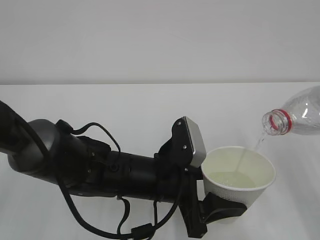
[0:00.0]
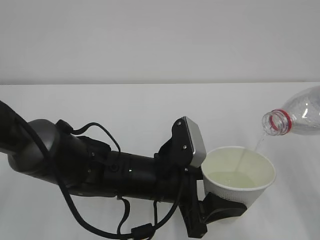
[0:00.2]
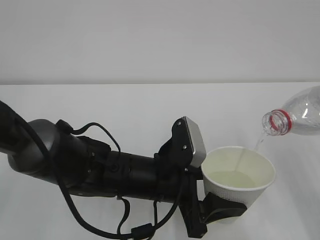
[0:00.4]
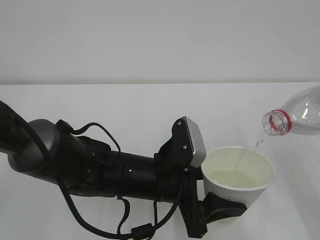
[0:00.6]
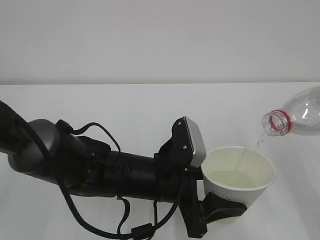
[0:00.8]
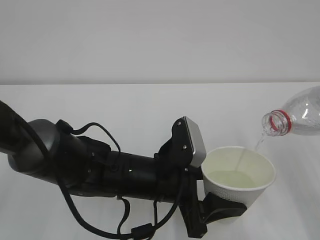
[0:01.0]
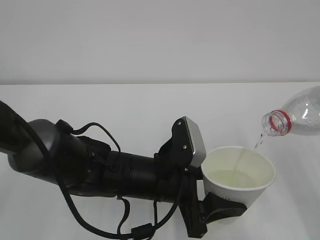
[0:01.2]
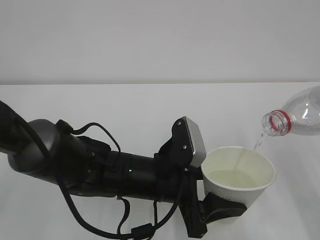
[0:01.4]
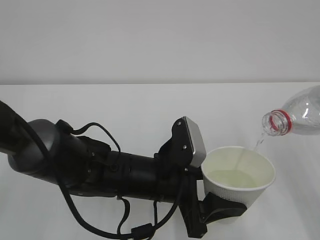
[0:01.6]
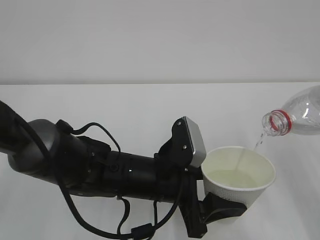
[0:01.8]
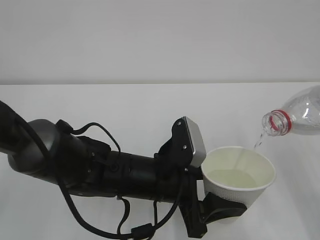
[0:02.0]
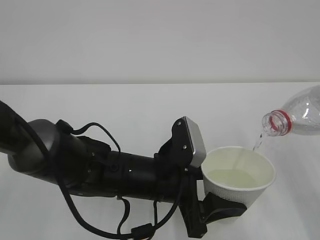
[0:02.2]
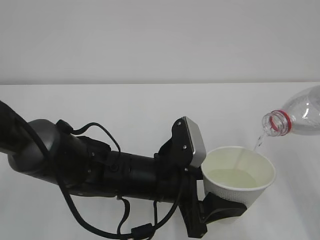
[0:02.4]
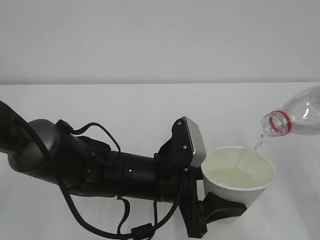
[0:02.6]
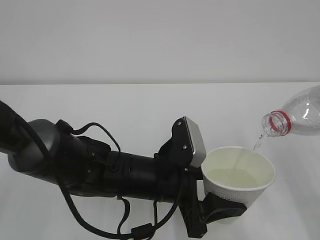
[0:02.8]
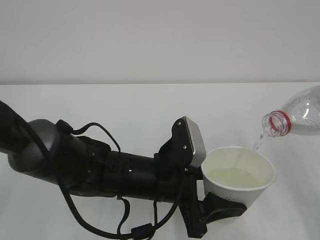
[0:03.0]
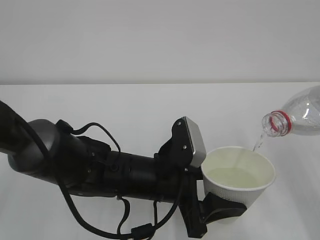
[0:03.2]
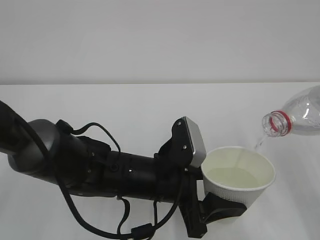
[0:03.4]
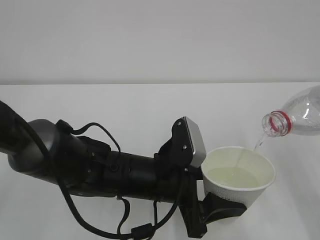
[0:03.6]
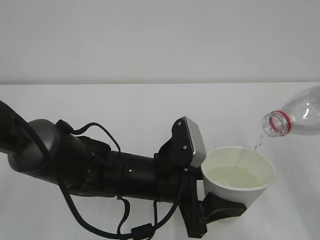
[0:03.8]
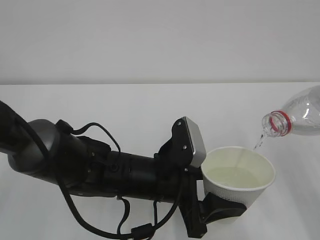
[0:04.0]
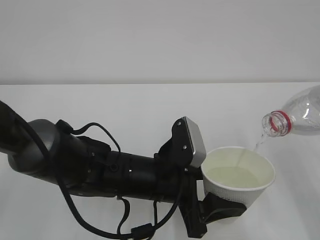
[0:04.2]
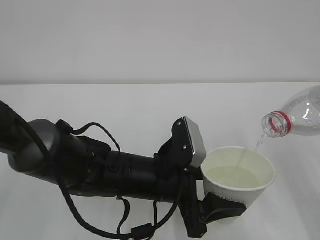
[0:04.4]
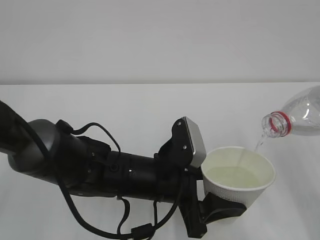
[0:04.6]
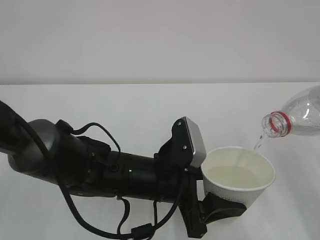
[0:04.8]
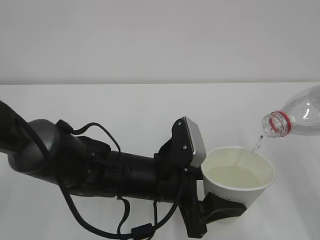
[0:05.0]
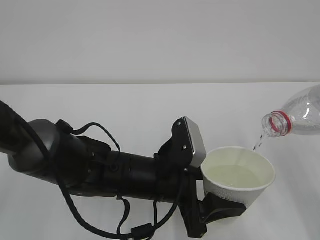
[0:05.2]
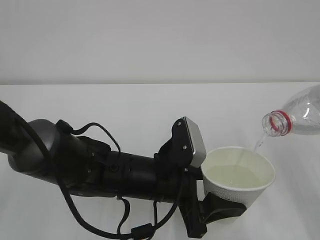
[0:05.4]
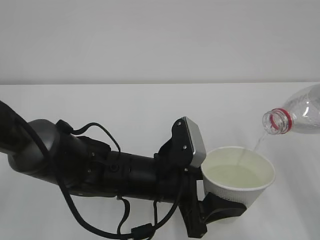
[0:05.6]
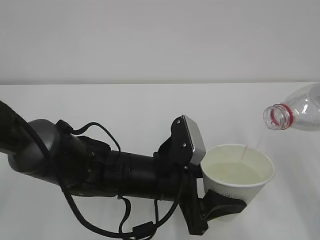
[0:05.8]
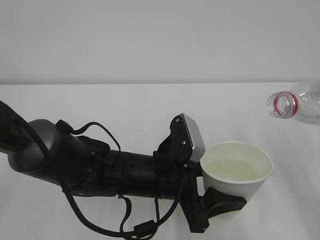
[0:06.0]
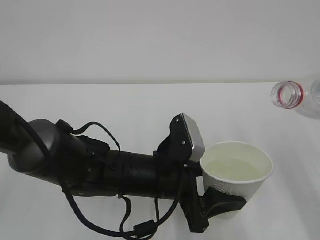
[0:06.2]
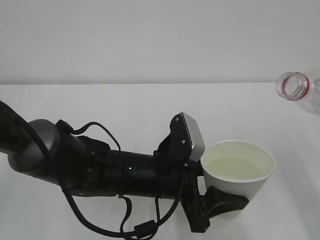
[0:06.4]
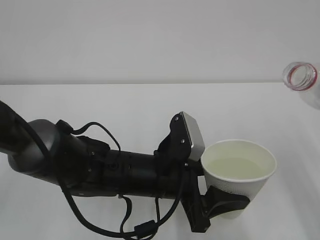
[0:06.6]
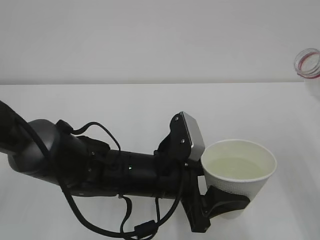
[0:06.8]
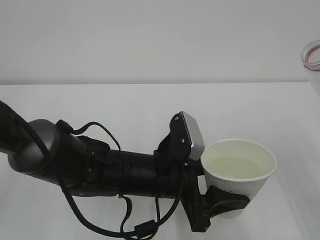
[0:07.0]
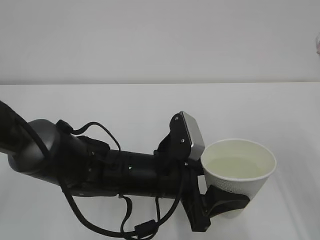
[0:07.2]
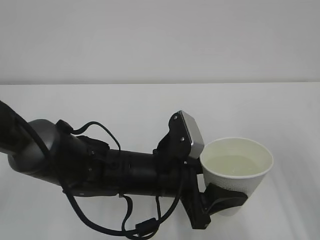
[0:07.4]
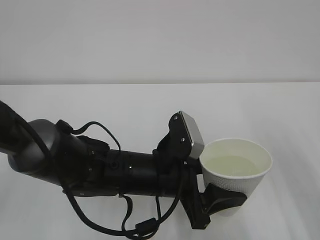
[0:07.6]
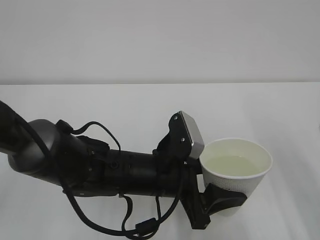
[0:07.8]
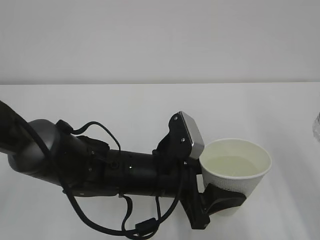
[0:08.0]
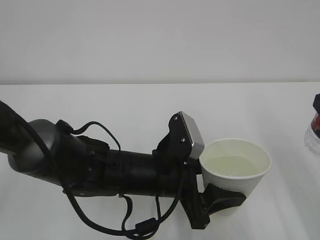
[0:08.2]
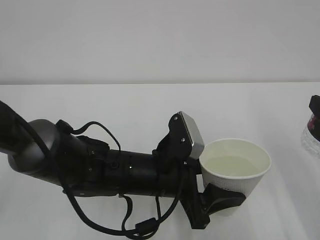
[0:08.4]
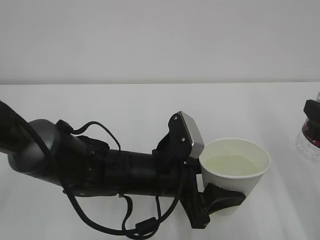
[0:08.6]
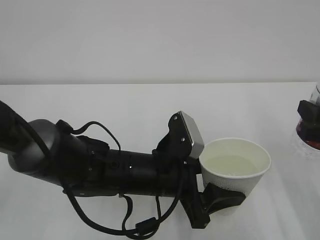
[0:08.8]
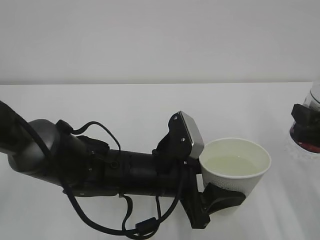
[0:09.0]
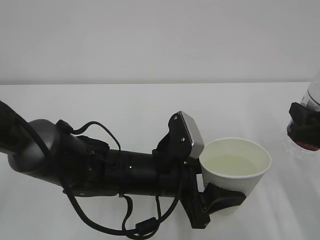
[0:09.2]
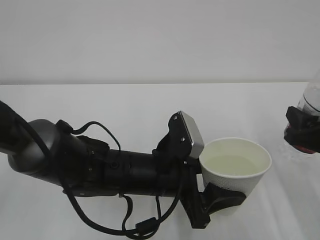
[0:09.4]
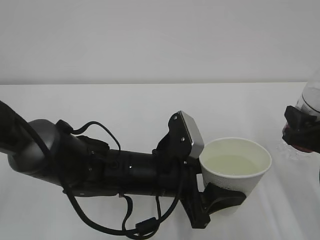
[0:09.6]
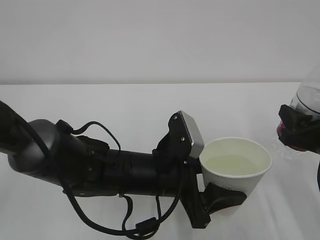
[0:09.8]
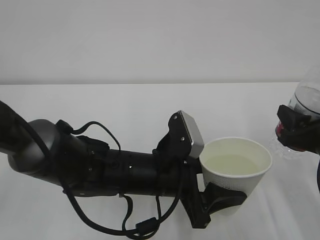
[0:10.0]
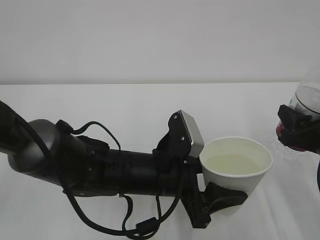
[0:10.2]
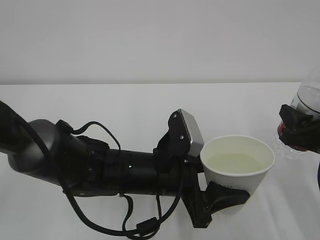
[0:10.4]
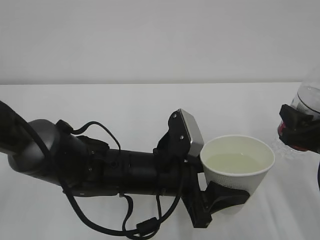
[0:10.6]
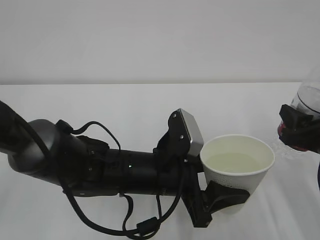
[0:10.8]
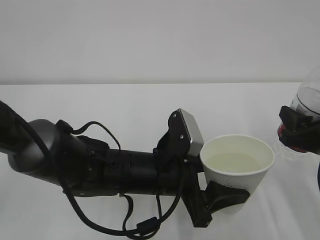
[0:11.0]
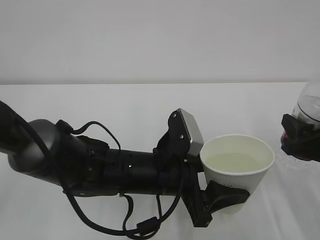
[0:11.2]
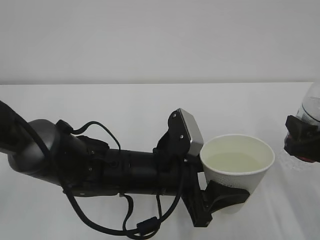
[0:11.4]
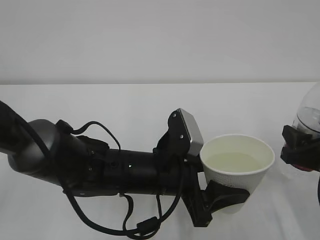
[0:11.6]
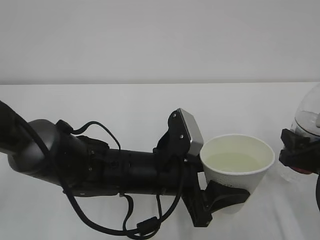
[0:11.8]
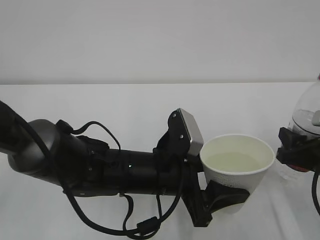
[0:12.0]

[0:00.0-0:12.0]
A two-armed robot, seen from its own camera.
0:00.0 to 0:04.4: The two grippers keep their place.
0:04.4 to 0:06.0: The grippers stay close to where they were, moving slightly.
0:07.6 to 0:09.0: The right gripper travels downward by approximately 5 cm.
0:09.0 to 0:12.0: There are only small adjustments of the grippers.

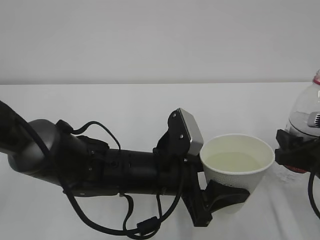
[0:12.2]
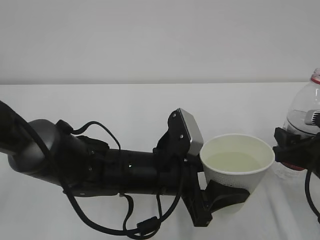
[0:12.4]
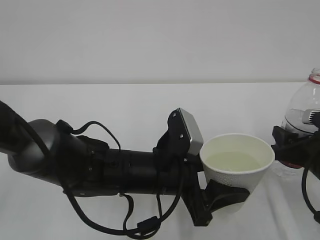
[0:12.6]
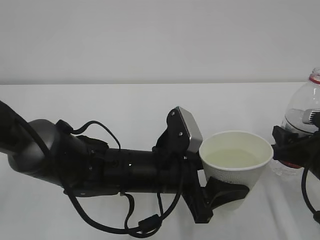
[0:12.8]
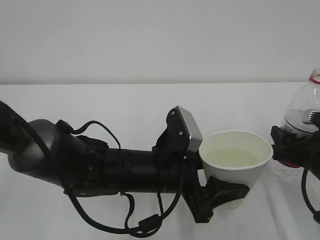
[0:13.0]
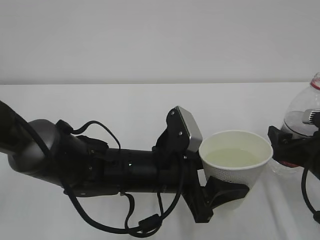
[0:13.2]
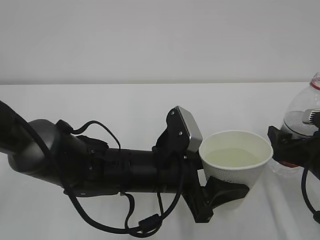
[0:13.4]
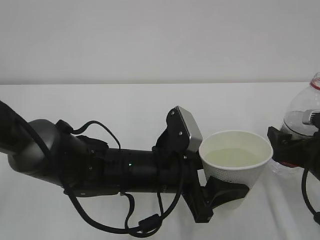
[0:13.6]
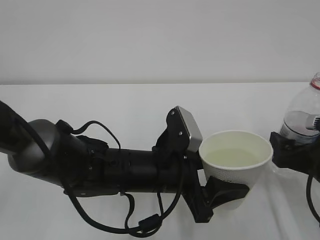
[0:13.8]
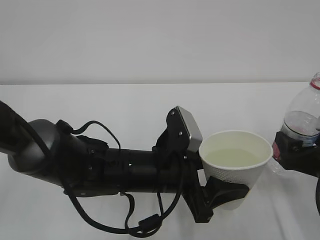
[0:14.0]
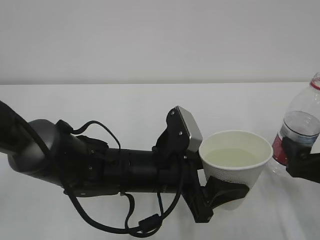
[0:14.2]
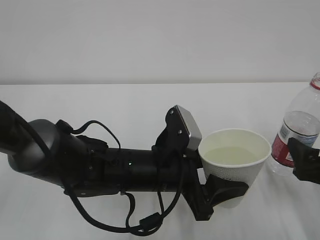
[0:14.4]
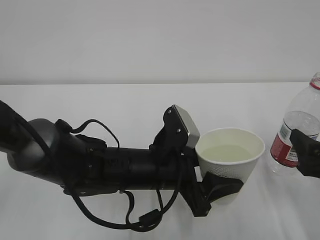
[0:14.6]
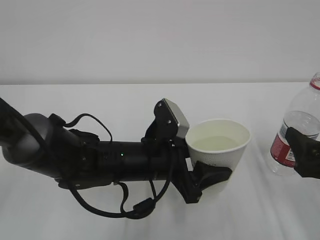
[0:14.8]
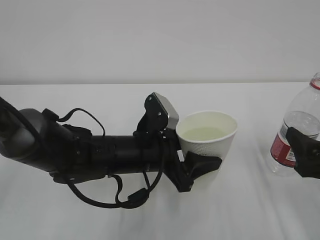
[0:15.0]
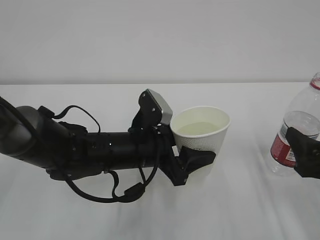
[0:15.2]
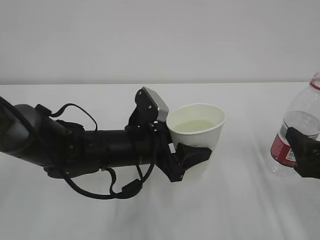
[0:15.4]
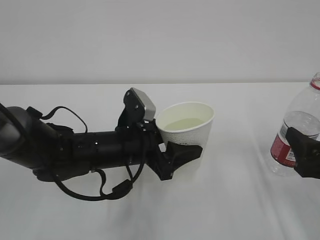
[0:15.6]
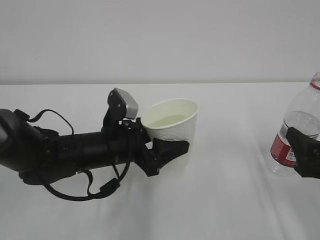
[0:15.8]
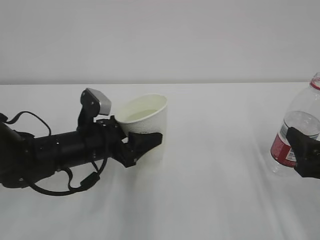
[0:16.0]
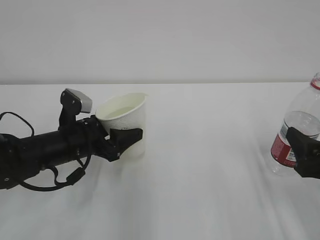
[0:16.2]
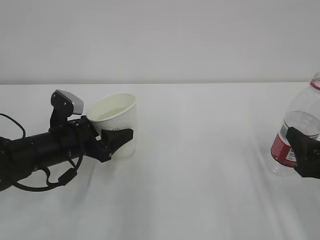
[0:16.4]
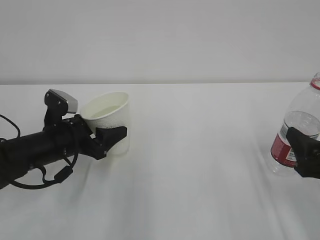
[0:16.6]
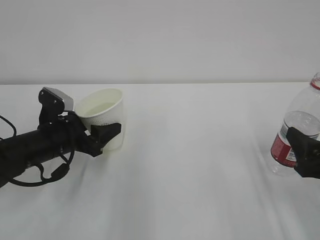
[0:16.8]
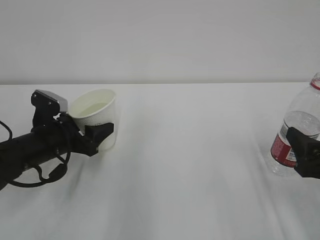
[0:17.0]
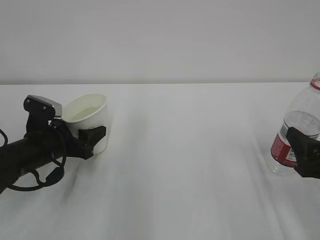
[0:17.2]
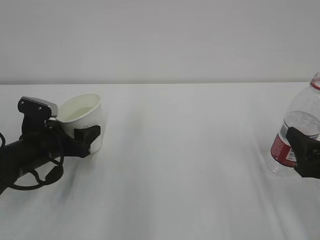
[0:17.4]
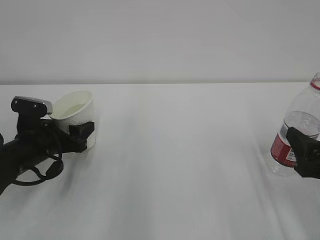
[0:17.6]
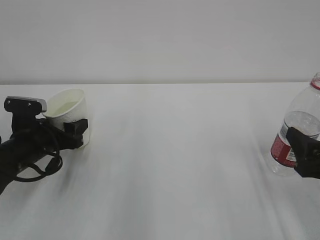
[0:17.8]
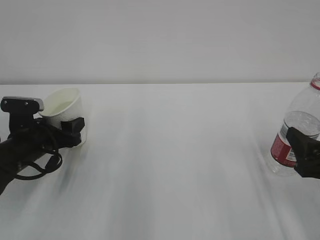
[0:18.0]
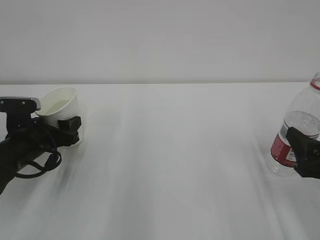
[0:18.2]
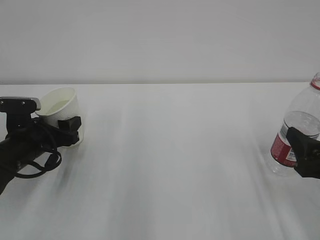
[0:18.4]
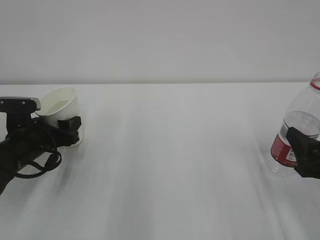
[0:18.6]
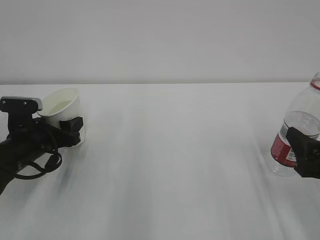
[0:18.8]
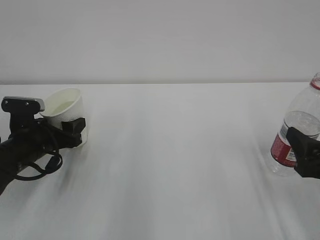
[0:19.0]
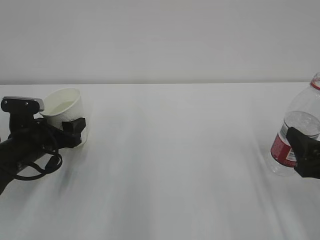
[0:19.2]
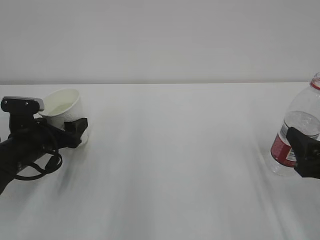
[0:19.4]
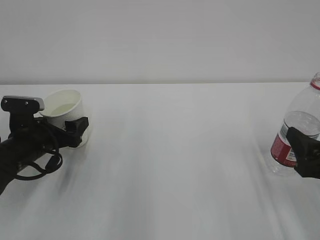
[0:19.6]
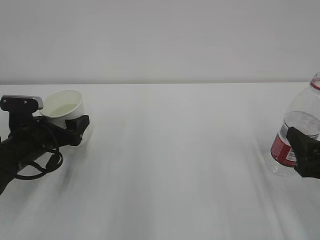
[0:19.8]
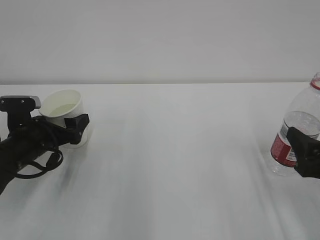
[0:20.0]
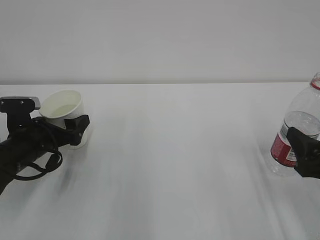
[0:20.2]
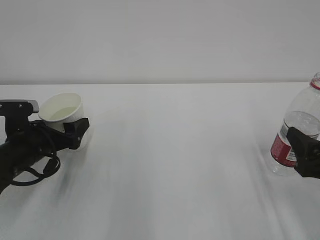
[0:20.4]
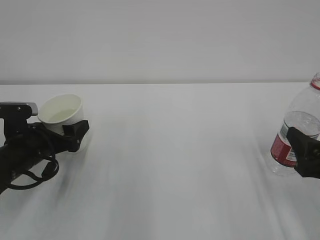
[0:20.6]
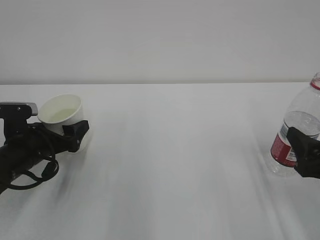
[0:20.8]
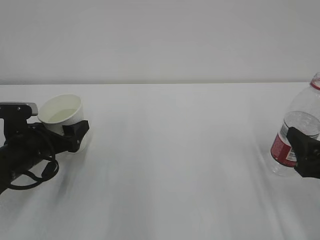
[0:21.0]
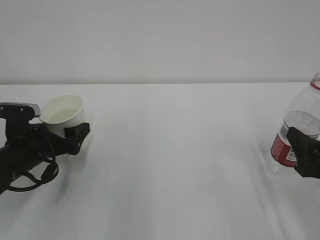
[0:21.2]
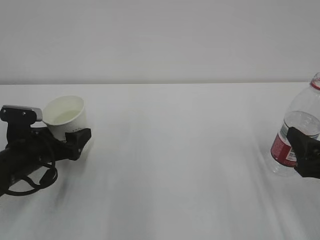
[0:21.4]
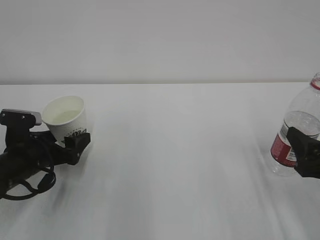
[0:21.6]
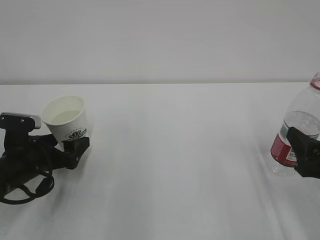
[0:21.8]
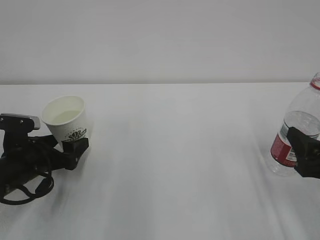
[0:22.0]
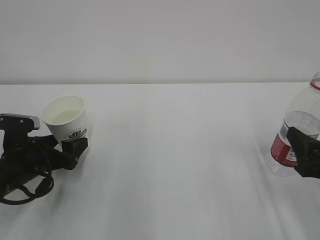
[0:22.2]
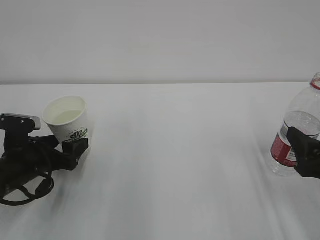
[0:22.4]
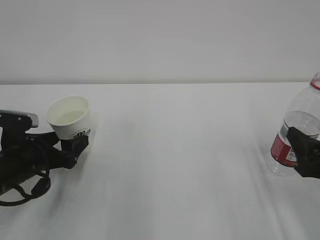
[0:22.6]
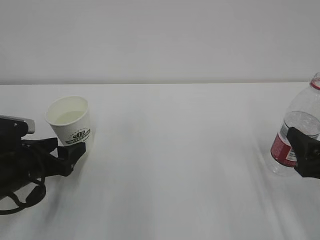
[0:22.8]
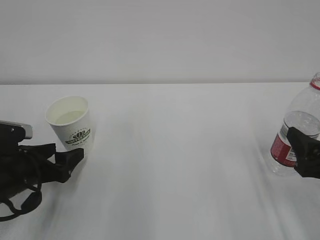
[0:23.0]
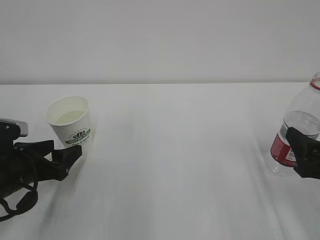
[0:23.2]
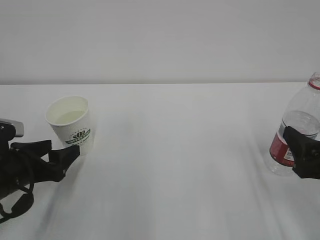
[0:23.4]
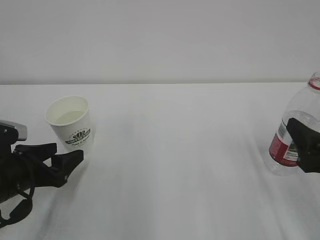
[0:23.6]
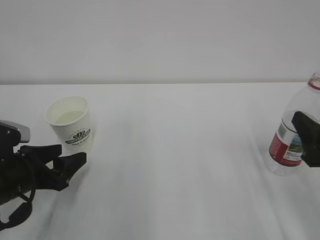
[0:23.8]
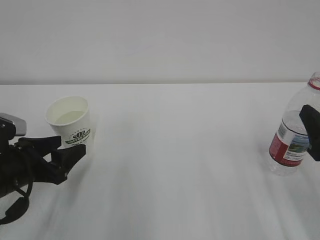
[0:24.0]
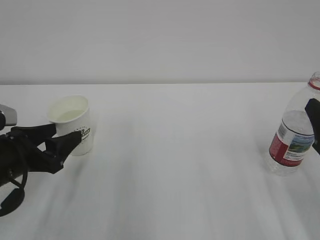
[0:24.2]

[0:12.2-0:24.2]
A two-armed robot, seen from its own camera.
0:12.2 to 0:13.8: The right gripper opens up.
0:13.8 to 0:15.2: The right gripper heads backward, covering approximately 5 cm; the left gripper ends up about 5 cm from where it was.
0:15.2 to 0:16.6: The left gripper travels to the left by approximately 15 cm.
0:16.6 to 0:18.2: The left gripper moves to the left, roughly 5 cm.
0:18.2 to 0:19.8: The left gripper opens its fingers.
0:19.8 to 0:22.6: The grippers stay close to where they were, moving slightly.
0:22.6 to 0:24.2: The left gripper ends up some 5 cm from where it was.
